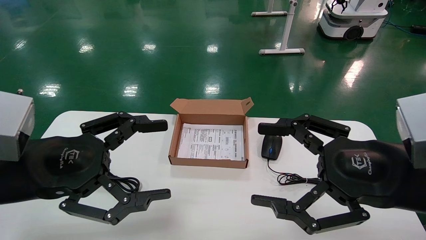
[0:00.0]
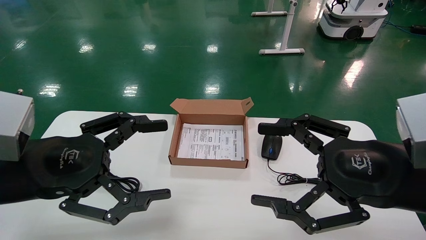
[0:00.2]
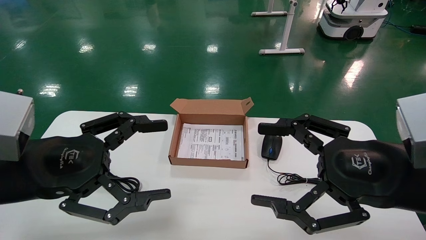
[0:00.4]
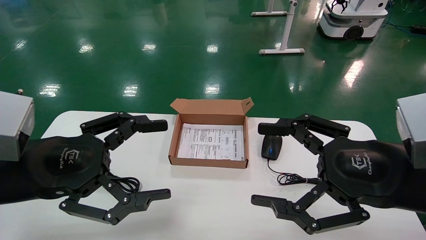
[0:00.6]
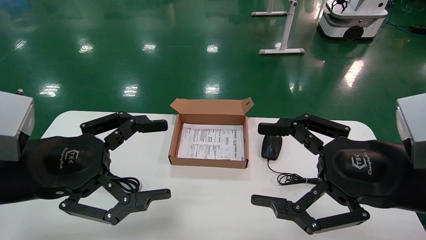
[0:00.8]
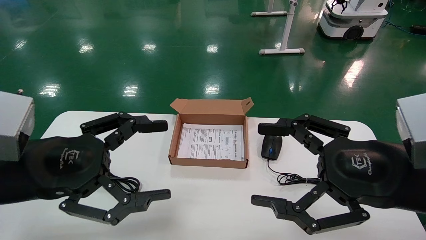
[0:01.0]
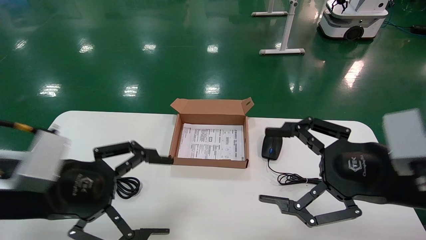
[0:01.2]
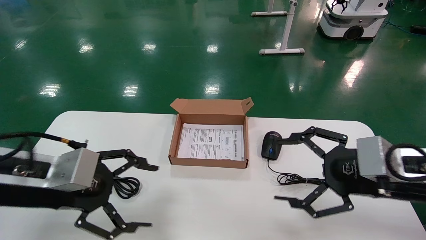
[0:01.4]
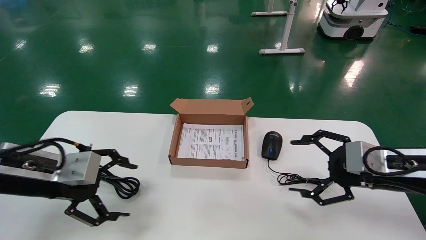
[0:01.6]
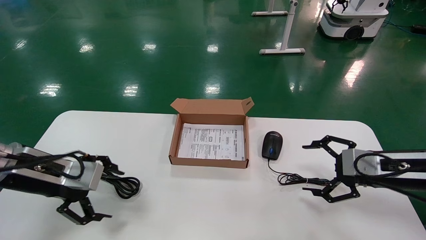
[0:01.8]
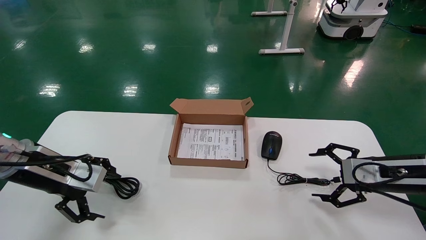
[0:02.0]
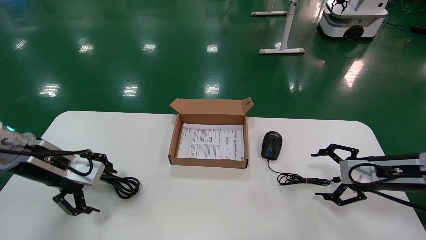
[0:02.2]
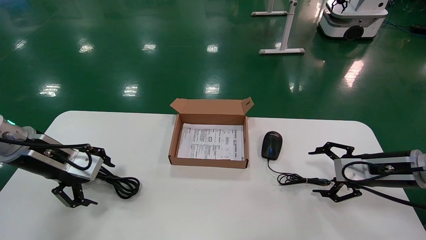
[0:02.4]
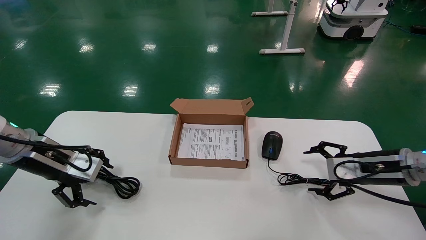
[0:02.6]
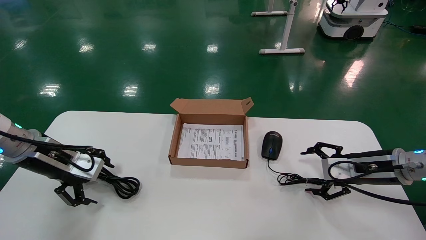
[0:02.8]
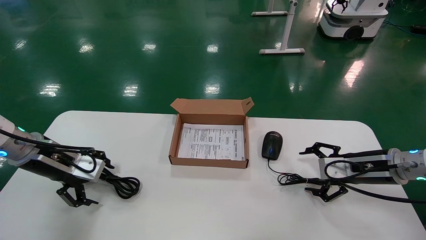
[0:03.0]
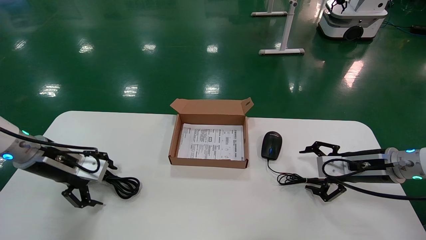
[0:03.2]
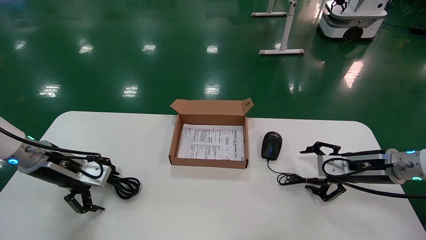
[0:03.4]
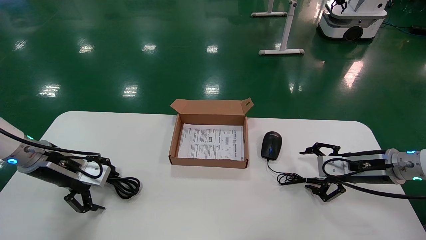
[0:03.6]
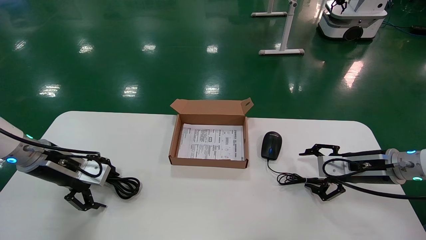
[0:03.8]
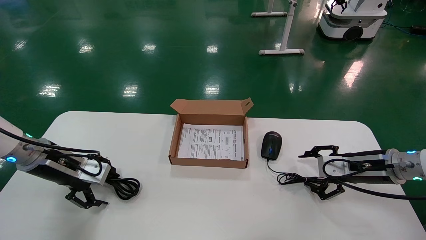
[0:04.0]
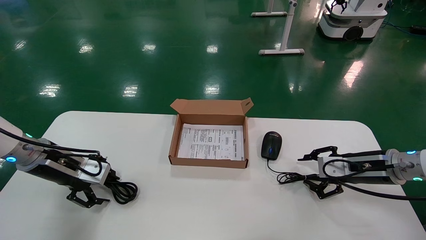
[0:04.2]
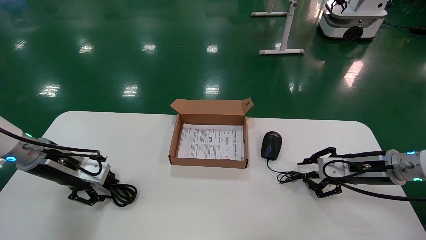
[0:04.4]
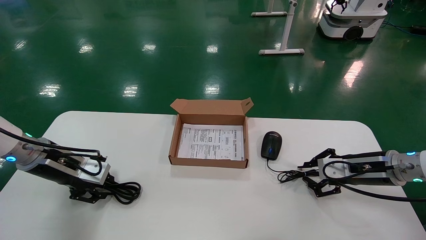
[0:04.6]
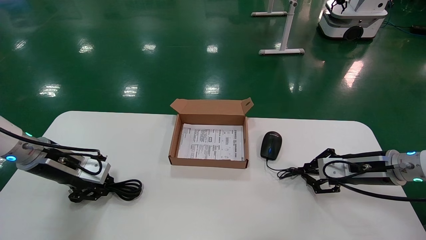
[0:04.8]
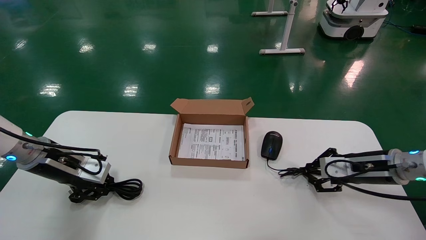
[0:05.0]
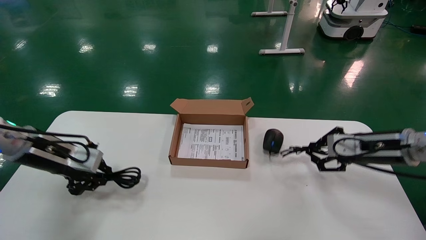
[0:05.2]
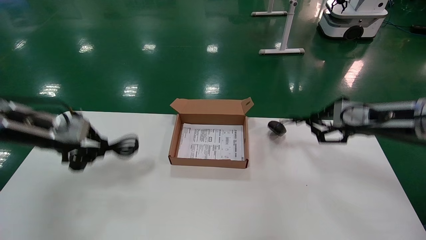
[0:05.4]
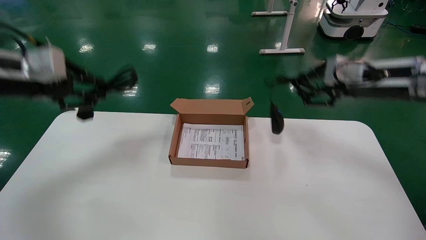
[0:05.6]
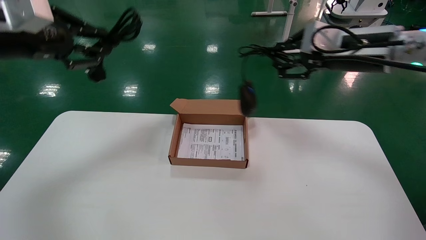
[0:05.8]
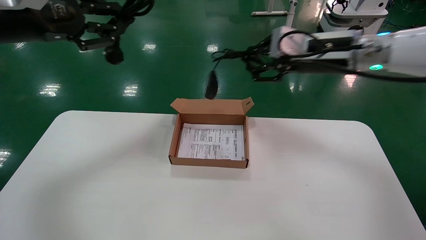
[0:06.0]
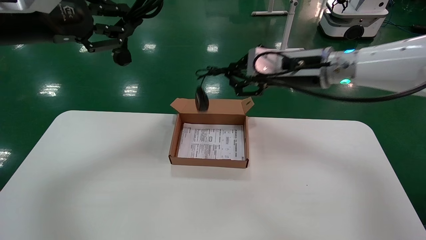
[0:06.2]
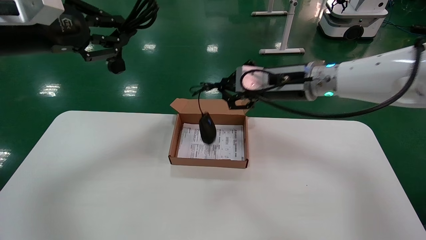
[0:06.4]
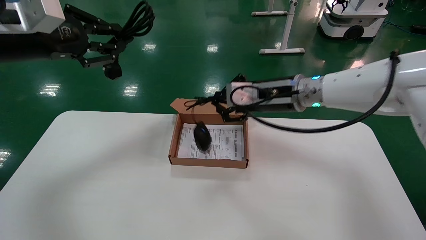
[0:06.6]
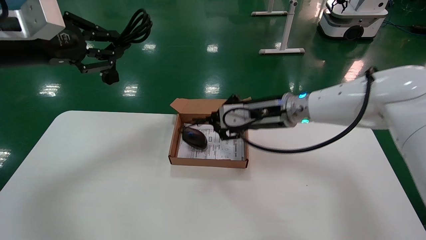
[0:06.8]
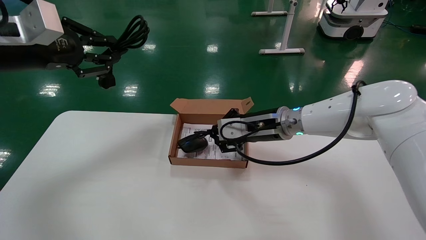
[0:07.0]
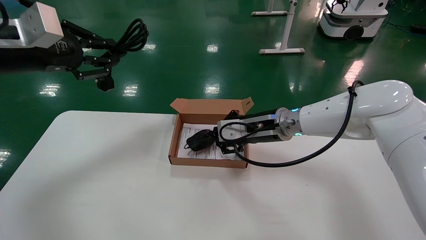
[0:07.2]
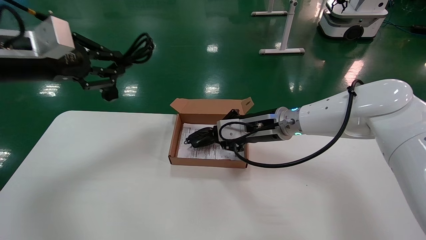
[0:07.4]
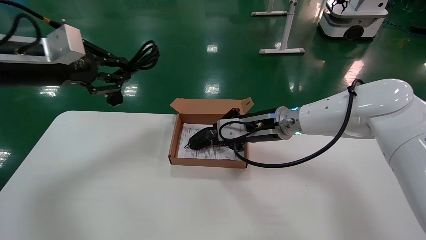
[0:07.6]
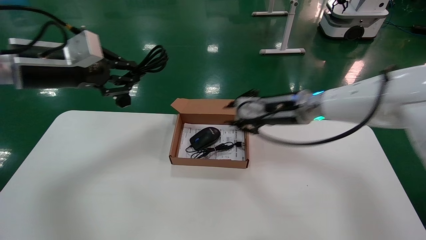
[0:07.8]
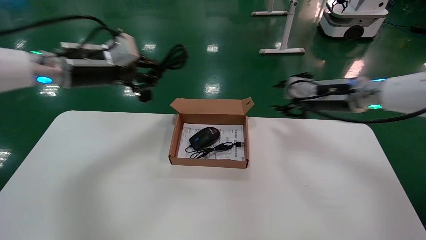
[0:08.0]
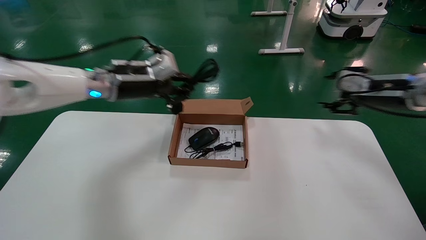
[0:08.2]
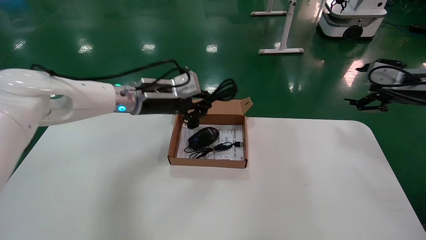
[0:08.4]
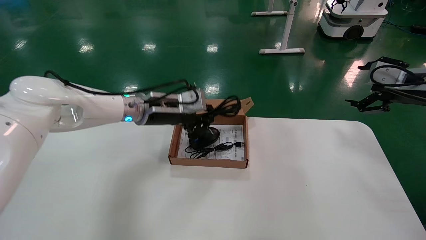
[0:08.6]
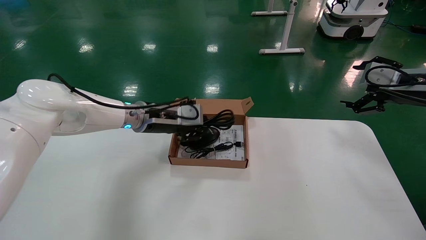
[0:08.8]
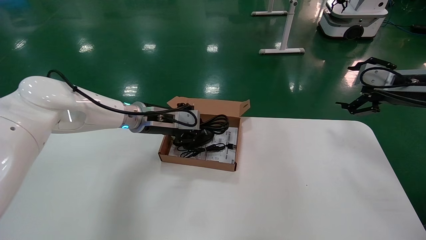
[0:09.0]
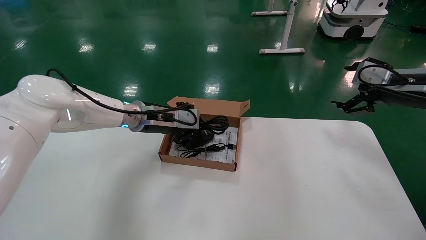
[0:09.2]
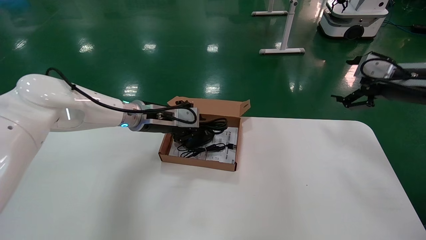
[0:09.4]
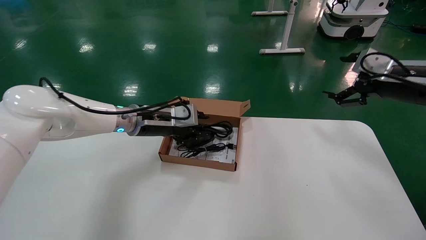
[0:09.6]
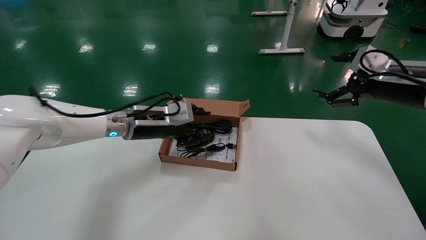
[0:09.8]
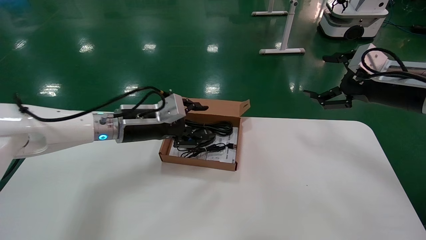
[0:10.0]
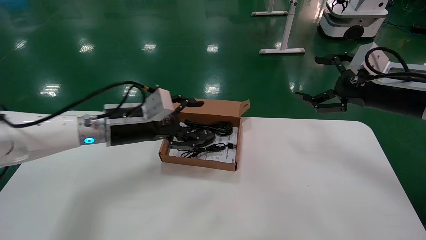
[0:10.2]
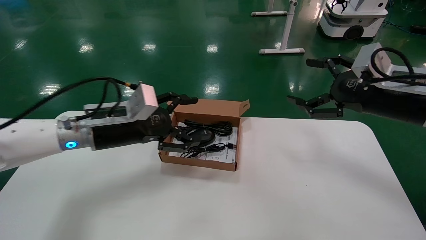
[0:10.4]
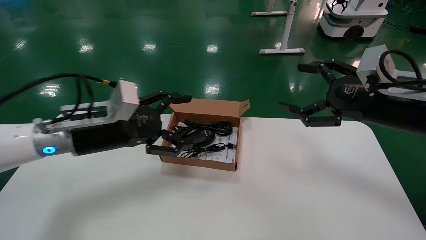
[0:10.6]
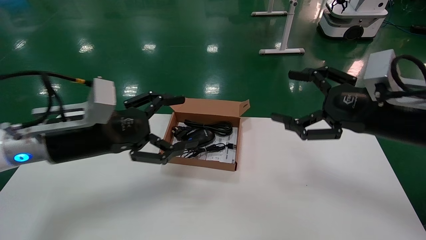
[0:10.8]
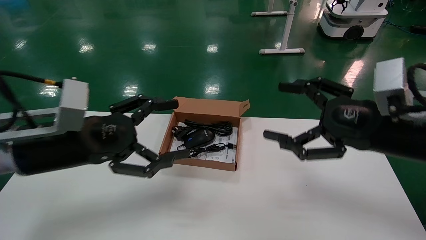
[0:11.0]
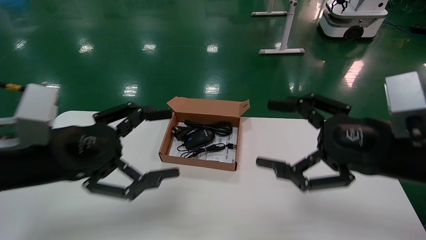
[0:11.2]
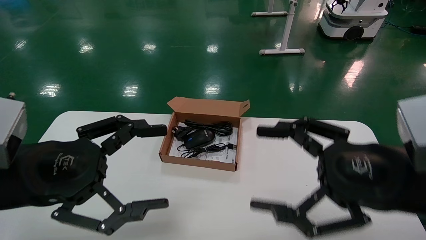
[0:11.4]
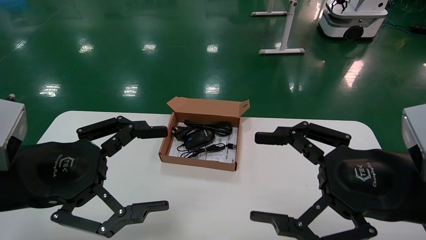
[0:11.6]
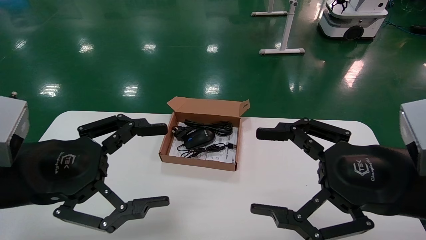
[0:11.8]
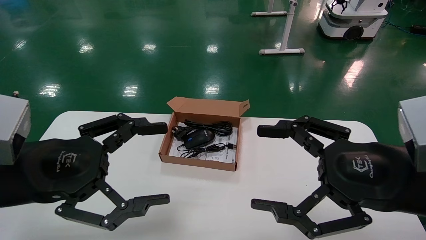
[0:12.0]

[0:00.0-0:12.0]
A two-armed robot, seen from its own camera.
Step, 0:01.4 to 0:05.0: Grab and lift both the mouse and power cord from the accessory packaging area at the same time.
Step, 0:05.2 to 0:09.4: Place the mouse and power cord into the box.
0:00.0 to 0:01.6: The left gripper moves forward, approximately 5 cm, while the right gripper is displaced forward, to the right and downward by approximately 15 cm.
0:01.6 to 0:03.0: The right gripper shifts some 10 cm forward and downward; the left gripper is displaced forward and to the left by some 10 cm.
0:03.0 to 0:04.4: The right gripper closes; the left gripper closes up.
0:04.4 to 0:06.0: The right gripper shifts approximately 25 cm upward and to the left, and closes, while the left gripper shifts roughly 25 cm upward, and closes up.
0:06.0 to 0:07.6: The left gripper travels downward by some 5 cm, while the right gripper is displaced downward and to the left by about 15 cm.
0:07.6 to 0:09.0: The right gripper heads to the right, covering about 25 cm, and opens its fingers. The left gripper travels to the right, downward and forward by roughly 25 cm.
0:09.0 to 0:10.4: The right gripper moves to the left and backward, approximately 10 cm. The left gripper is displaced backward and to the left by about 10 cm, and opens up.
0:10.4 to 0:12.0: The left gripper is displaced backward by roughly 15 cm, while the right gripper shifts about 15 cm backward and to the left.

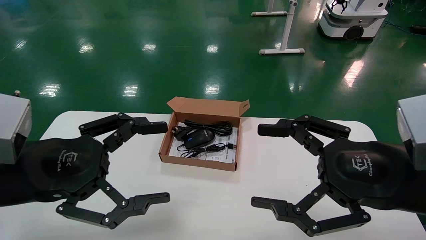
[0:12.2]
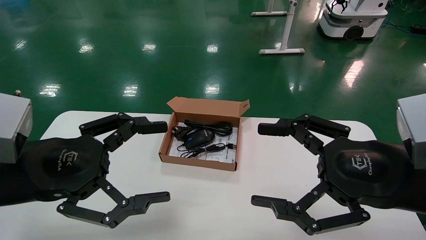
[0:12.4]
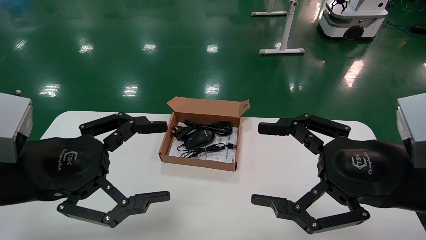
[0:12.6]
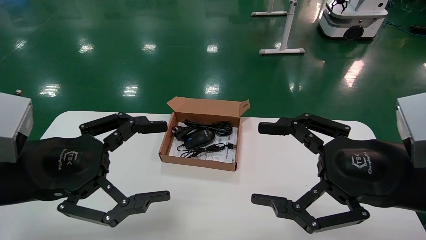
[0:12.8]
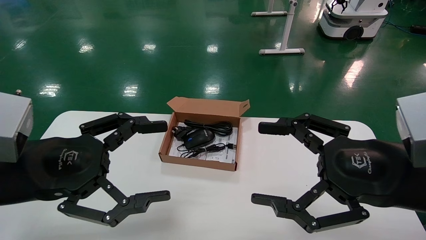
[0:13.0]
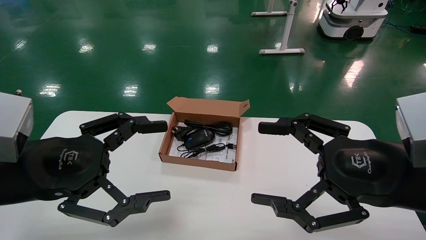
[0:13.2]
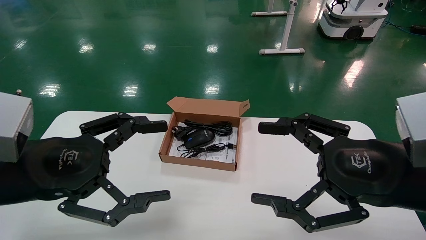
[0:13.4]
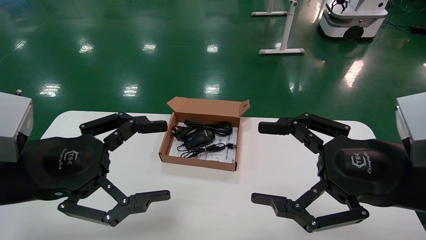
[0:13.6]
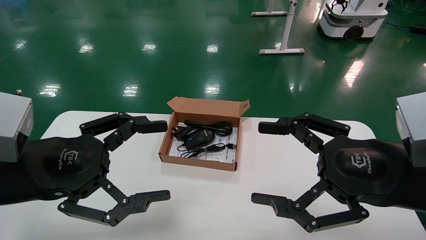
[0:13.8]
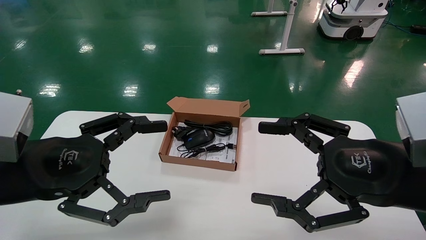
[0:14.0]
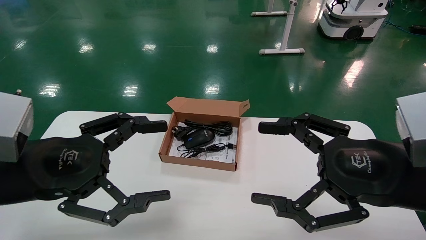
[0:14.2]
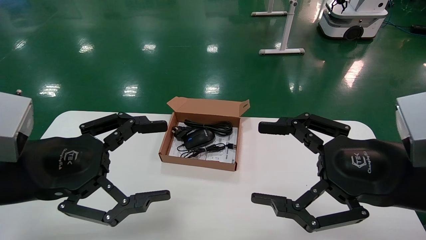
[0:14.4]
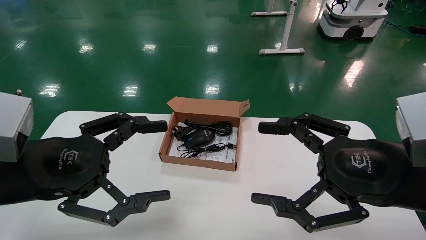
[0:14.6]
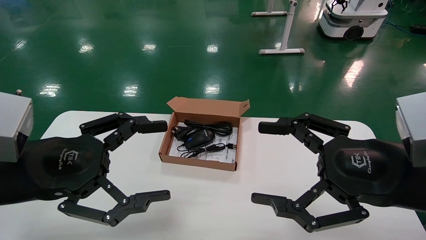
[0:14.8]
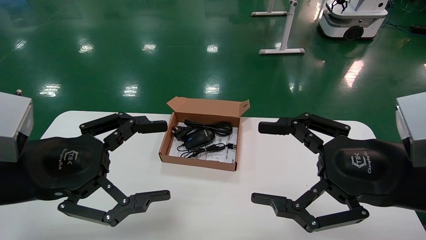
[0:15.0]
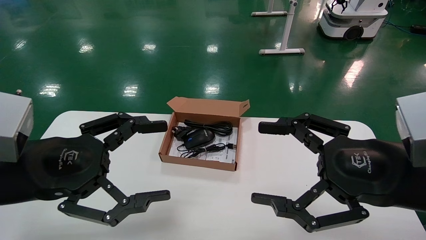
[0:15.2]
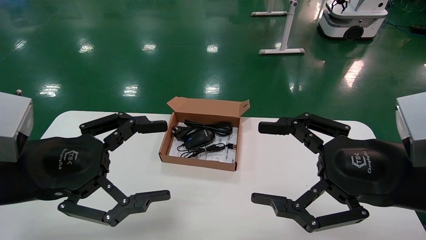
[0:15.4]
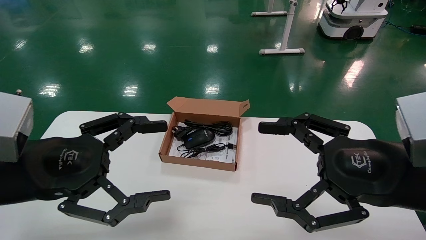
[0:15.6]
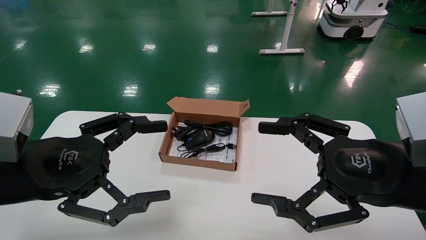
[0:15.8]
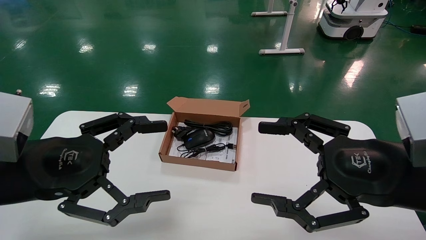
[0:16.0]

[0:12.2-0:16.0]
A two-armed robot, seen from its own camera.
0:12.2 to 0:16.0: Both grippers stay put.
